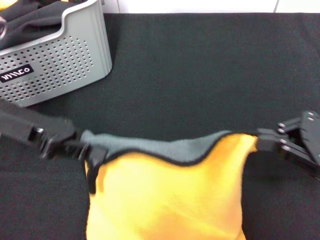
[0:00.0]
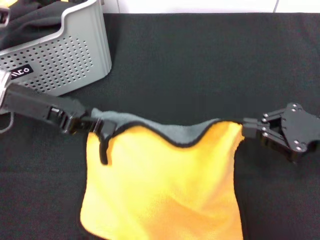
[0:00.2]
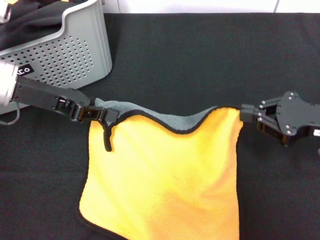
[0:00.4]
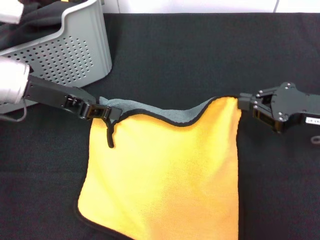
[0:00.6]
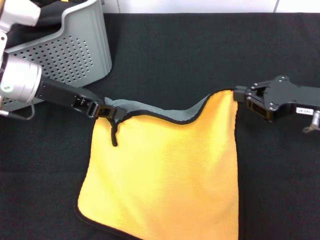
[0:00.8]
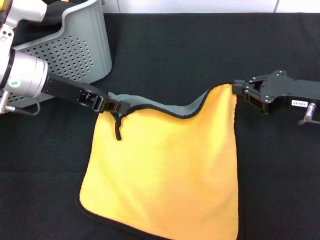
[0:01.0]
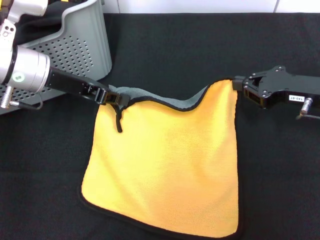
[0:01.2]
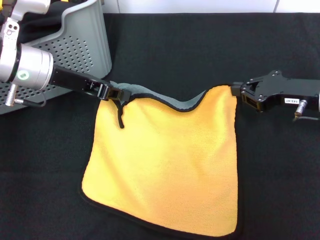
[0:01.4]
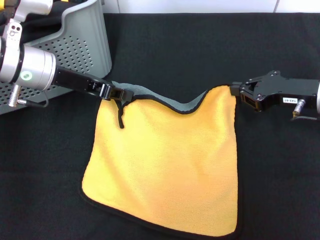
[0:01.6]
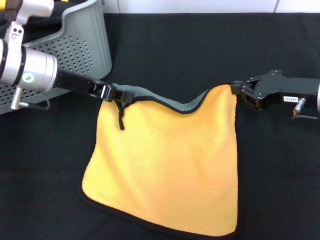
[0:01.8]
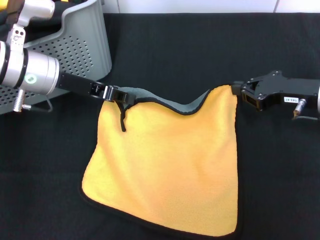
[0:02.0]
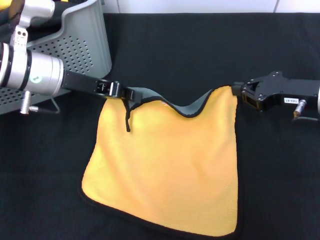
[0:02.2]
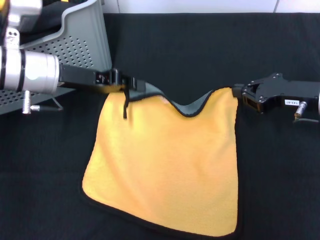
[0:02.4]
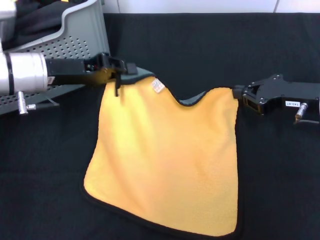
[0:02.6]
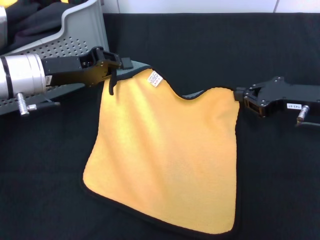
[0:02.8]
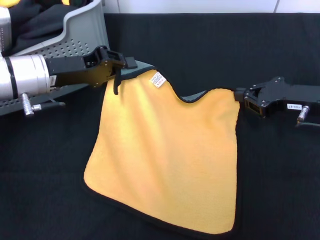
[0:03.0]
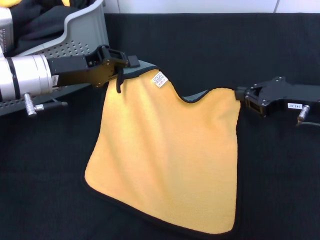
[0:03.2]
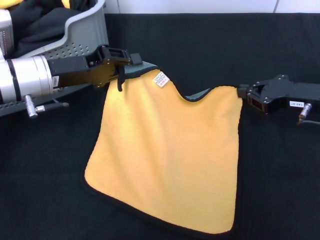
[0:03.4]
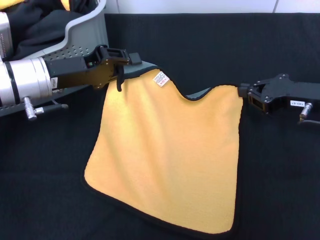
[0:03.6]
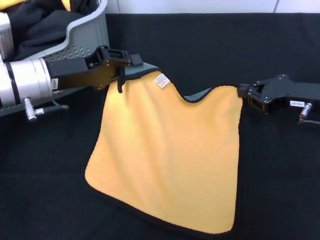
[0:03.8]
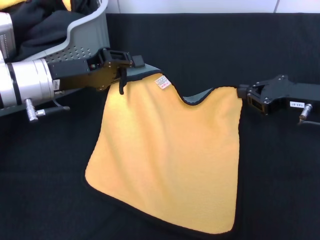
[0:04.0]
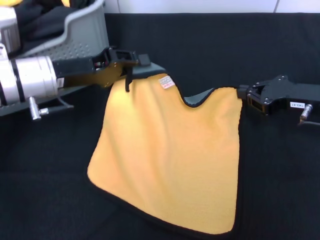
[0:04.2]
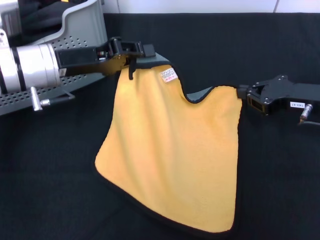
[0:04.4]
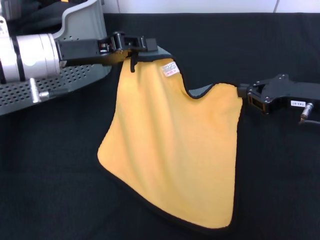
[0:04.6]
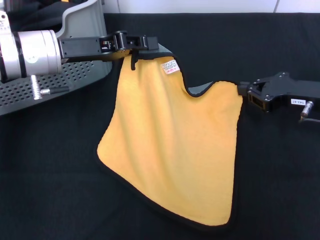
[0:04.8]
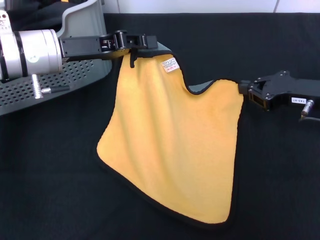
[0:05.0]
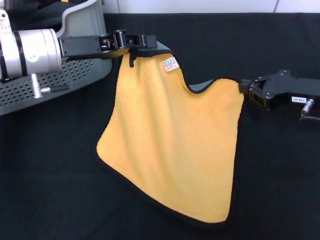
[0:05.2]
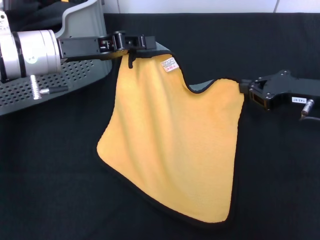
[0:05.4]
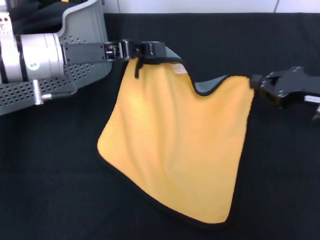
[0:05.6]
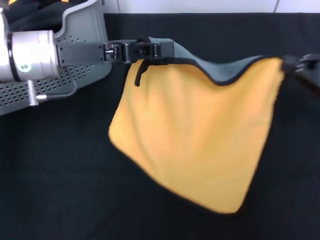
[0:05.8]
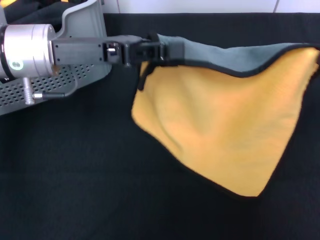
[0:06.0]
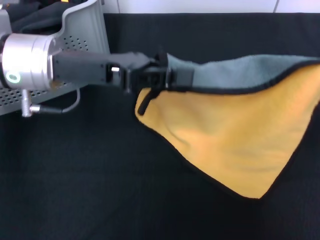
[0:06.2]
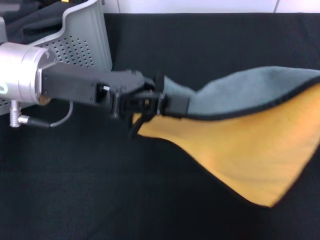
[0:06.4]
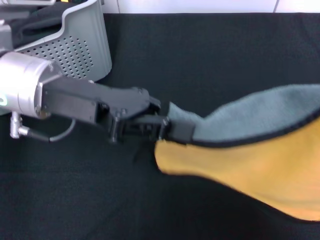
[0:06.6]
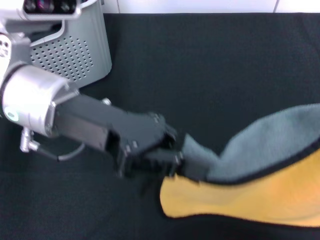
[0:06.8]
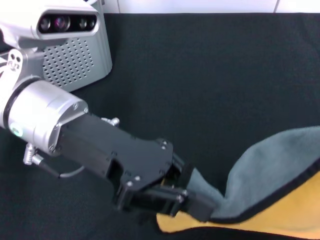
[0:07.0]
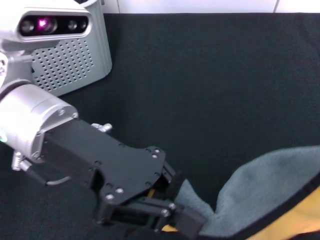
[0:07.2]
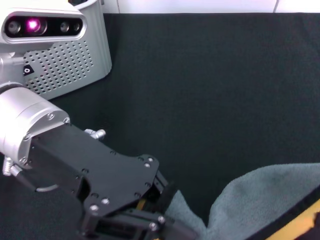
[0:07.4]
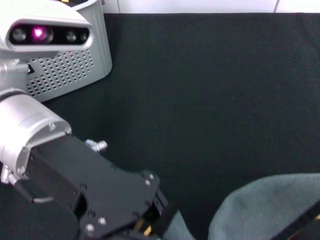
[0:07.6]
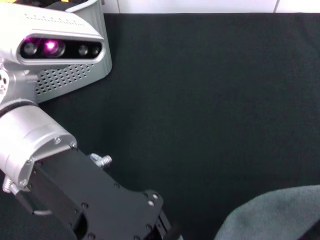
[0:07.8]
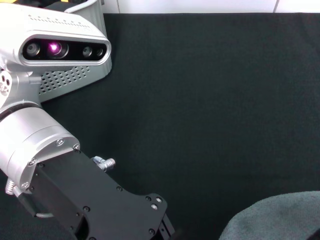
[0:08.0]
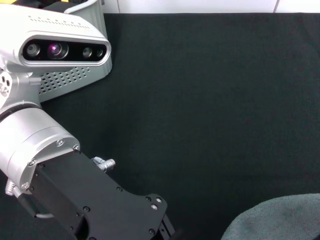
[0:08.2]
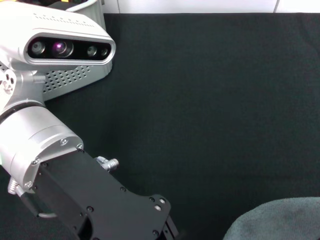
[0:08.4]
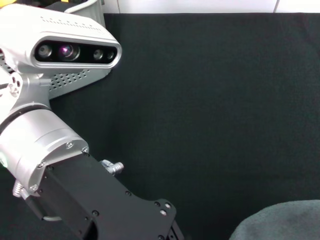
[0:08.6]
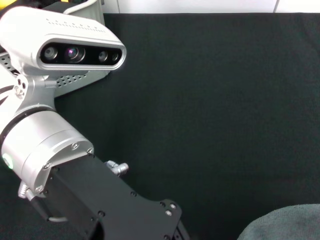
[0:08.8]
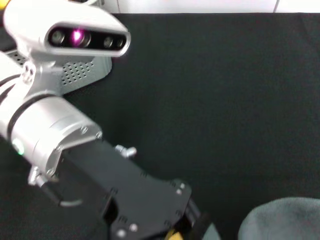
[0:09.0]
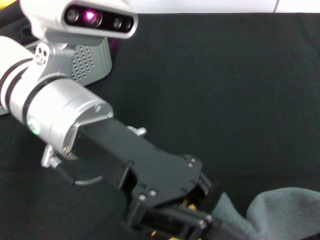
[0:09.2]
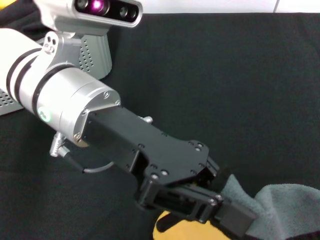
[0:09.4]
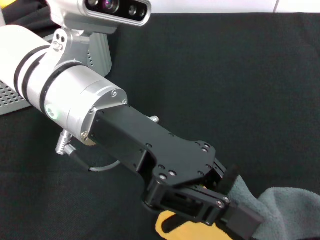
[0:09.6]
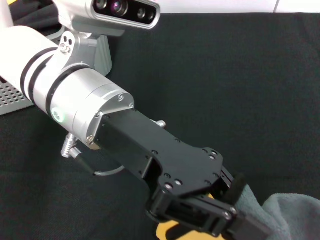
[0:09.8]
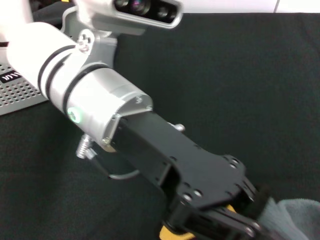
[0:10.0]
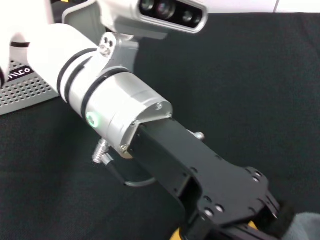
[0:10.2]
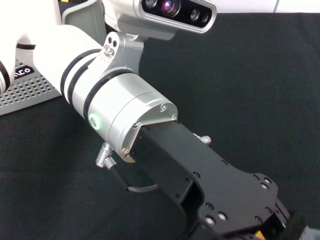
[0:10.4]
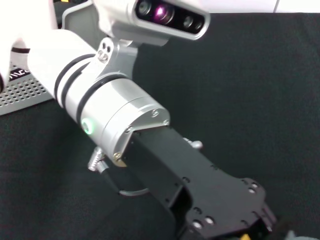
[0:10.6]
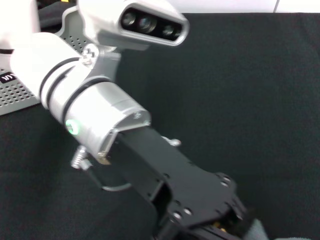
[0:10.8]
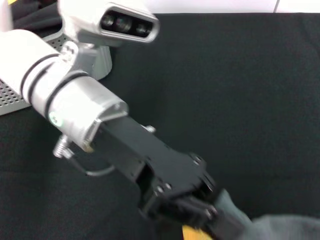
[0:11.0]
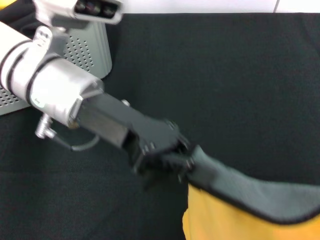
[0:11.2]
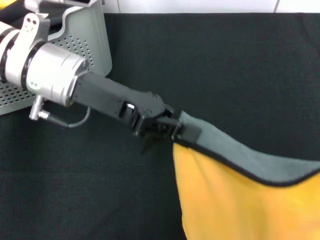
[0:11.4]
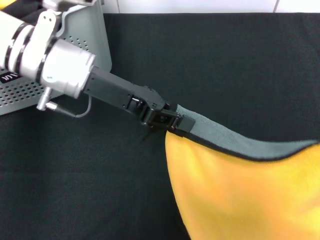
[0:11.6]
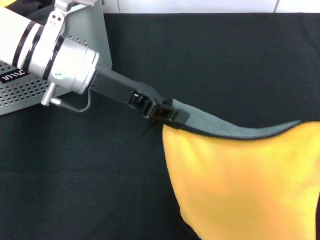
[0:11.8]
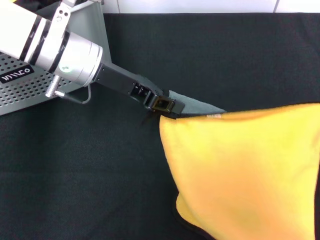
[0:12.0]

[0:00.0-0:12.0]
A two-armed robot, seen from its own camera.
Task of the whole recording: pick up the towel from the storage box and lay it flat on the black tablecloth.
0:00.0 to 0:01.6: Both grippers move forward, about 10 cm.
0:03.0 to 0:04.4: The grippers make only small movements.
0:04.4 to 0:06.0: The left gripper is displaced upward by roughly 5 cm, while the right gripper goes some 15 cm upward, to the right and backward.
0:06.0 to 0:07.6: The right gripper moves backward, about 10 cm; the left gripper travels backward by some 10 cm.
0:09.0 to 0:10.4: The left gripper goes roughly 5 cm to the right.
0:10.4 to 0:12.0: The left gripper shifts about 15 cm forward, to the left and downward. The right gripper shifts roughly 15 cm forward and downward.

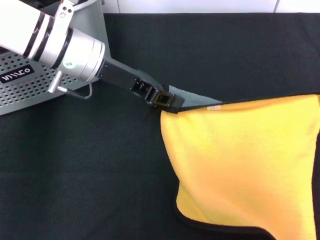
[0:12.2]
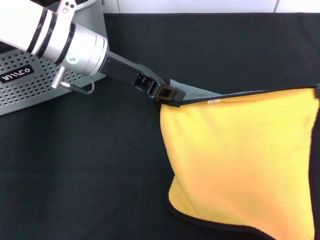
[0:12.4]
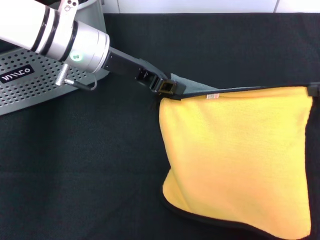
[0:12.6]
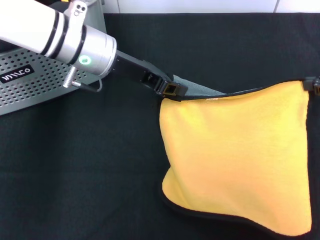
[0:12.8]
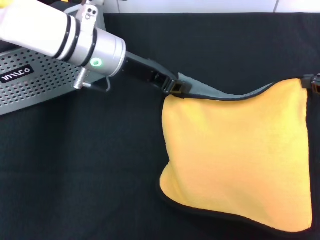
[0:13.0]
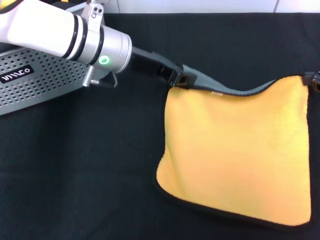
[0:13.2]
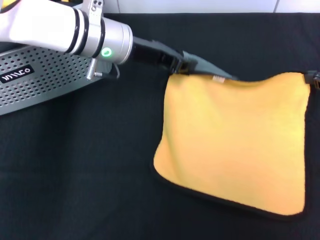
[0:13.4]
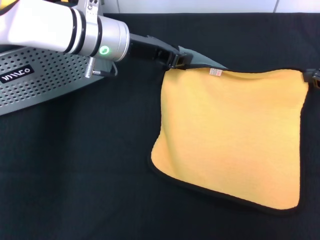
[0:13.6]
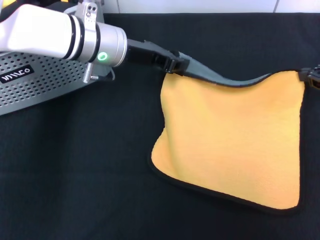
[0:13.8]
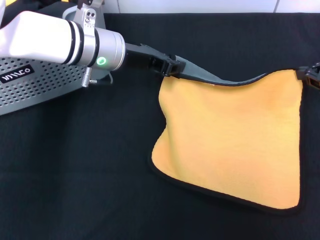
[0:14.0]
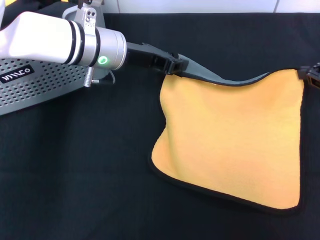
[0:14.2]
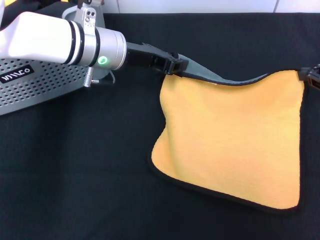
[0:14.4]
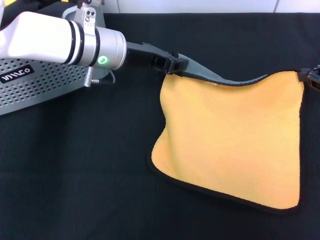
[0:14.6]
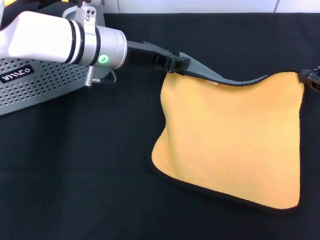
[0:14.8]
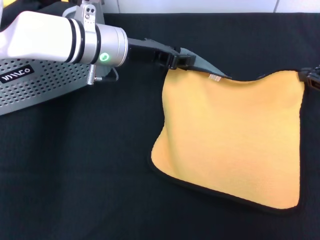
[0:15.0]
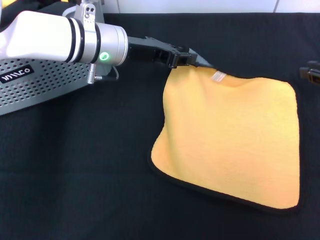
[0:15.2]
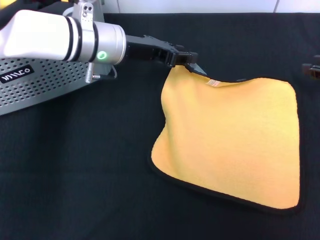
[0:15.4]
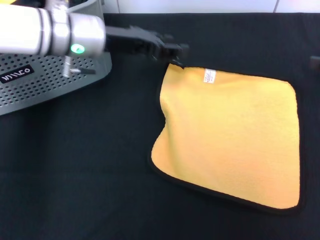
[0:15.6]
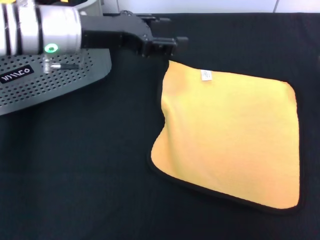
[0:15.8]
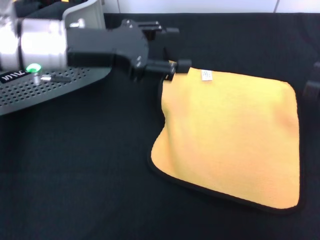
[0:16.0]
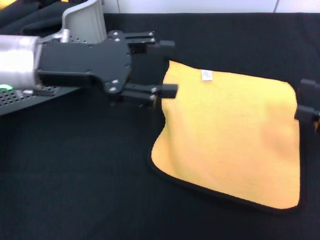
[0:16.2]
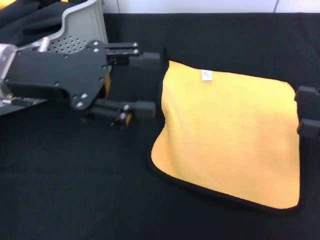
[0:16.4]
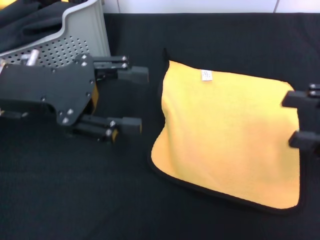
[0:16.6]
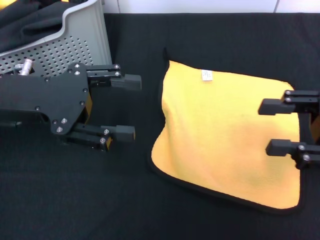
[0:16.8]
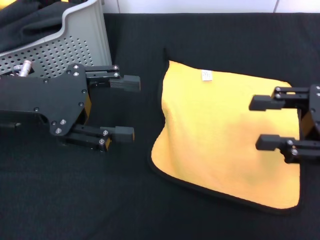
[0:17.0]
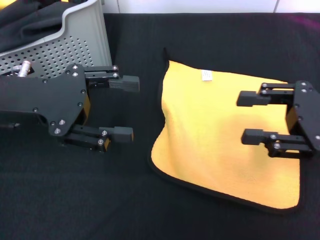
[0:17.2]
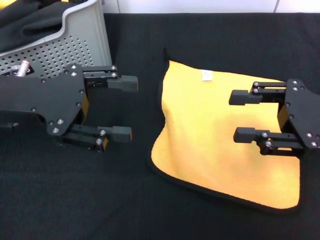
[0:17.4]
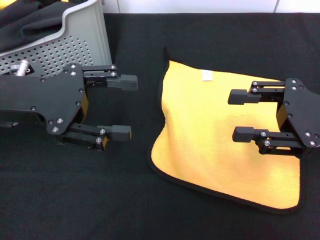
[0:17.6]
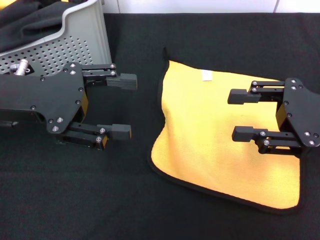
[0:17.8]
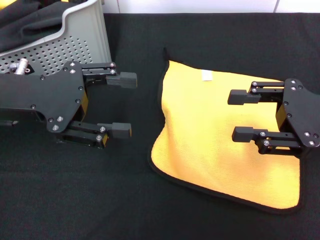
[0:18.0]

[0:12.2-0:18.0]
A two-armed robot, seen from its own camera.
Task of the whole recording: pick up the towel from the storage box and lay it flat on the black tablecloth.
Step, 0:12.2 to 0:15.2: Spread the towel flat with the right gripper.
0:12.2 to 0:13.6: The right gripper ends up roughly 5 cm from where it was.
0:13.6 to 0:15.0: The grippers make only small movements.
0:15.0 to 0:16.6: The left gripper is displaced to the left and backward by approximately 15 cm, and opens up; the right gripper moves backward, roughly 10 cm, and opens.
0:16.6 to 0:18.0: The right gripper travels to the left by some 5 cm.

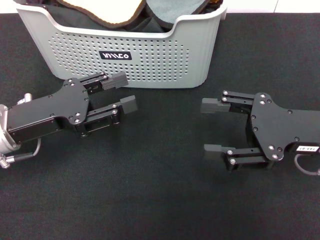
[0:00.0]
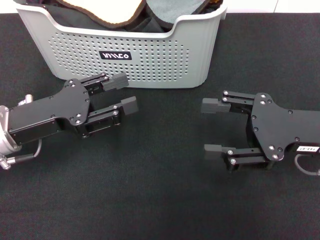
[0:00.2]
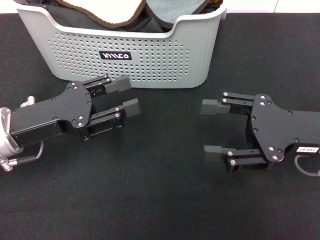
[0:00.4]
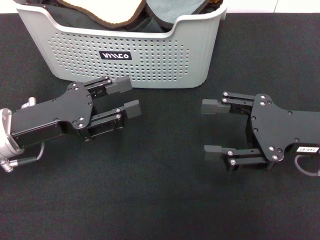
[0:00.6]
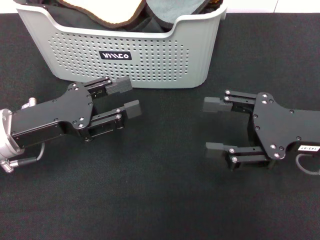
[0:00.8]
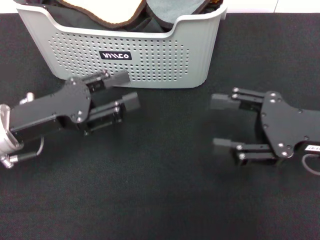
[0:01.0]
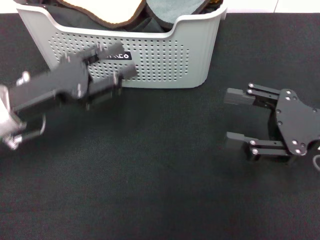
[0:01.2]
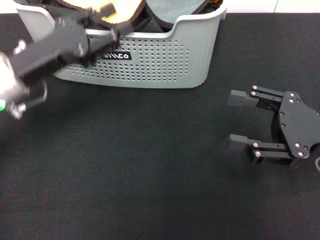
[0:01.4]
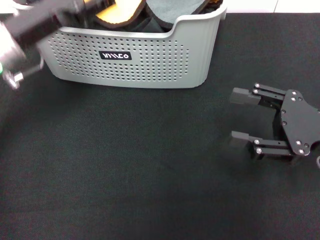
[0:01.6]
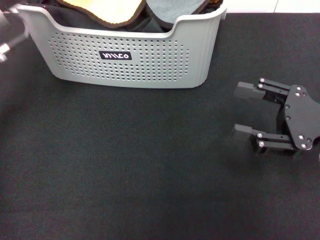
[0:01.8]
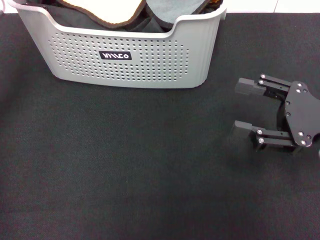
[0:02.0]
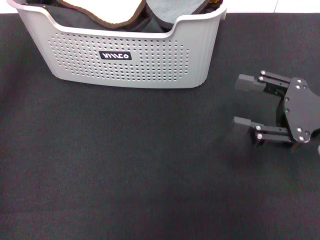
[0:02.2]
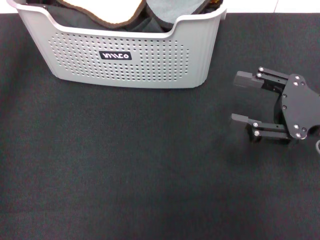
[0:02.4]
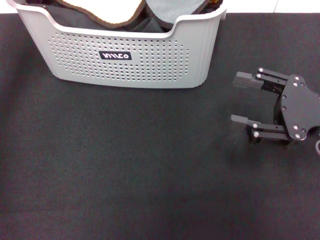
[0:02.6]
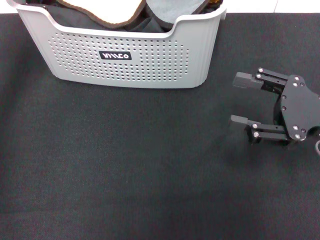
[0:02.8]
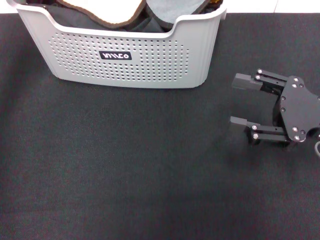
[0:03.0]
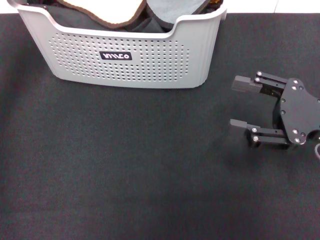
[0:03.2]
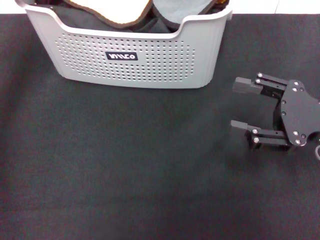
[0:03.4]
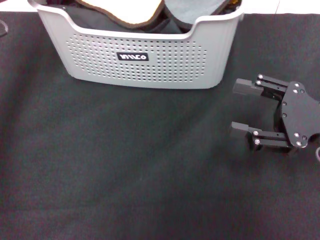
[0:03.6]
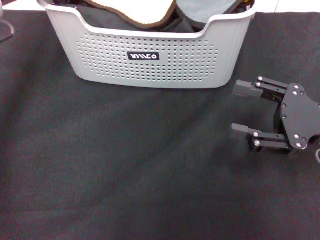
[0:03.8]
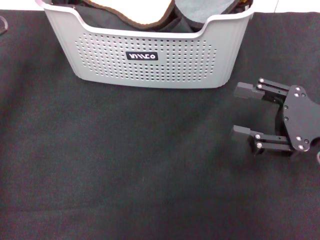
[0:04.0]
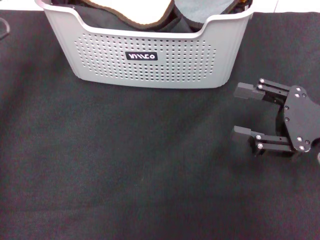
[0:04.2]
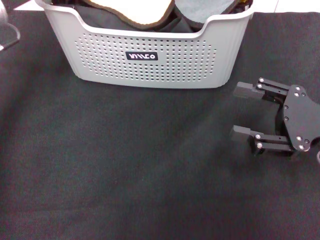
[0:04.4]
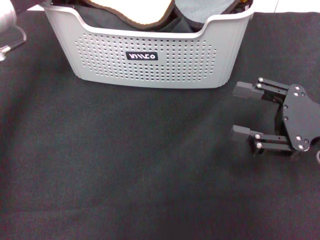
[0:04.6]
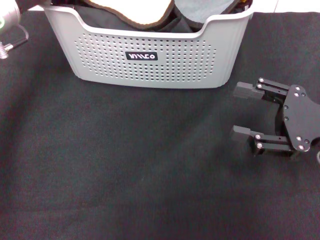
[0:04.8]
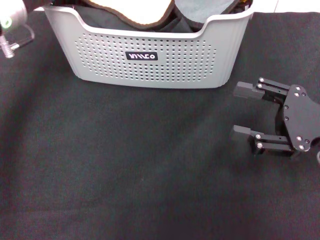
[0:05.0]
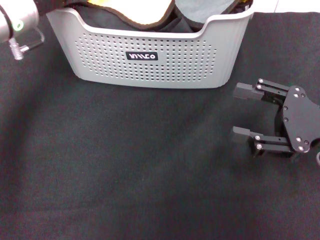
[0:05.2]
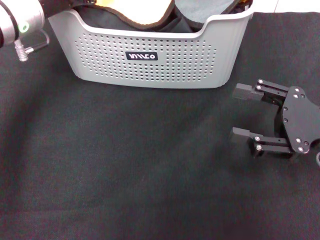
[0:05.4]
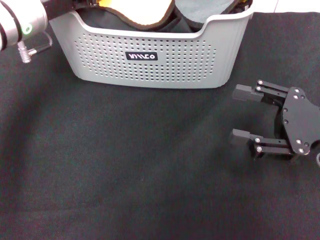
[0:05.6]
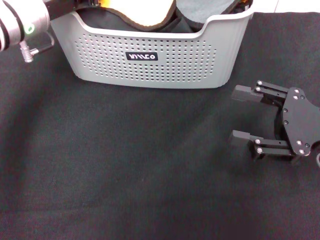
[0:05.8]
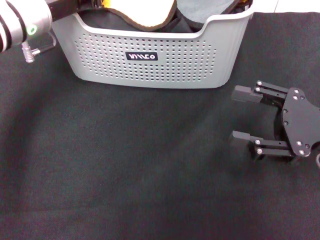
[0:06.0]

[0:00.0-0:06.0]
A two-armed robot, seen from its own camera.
Task of the whole recording: pick up the towel from the storage box and lay it flat on the black tablecloth.
Step, 0:00.0 to 0:03.8: Pick up a towel with the left gripper.
0:00.0 to 0:01.6: The left gripper is displaced forward and upward by about 10 cm.
0:01.6 to 0:03.0: The left gripper travels to the left by approximately 5 cm.
0:03.0 to 0:04.4: The grippers make only small movements.
0:04.4 to 0:06.0: The left gripper shifts by approximately 5 cm, and closes up.
